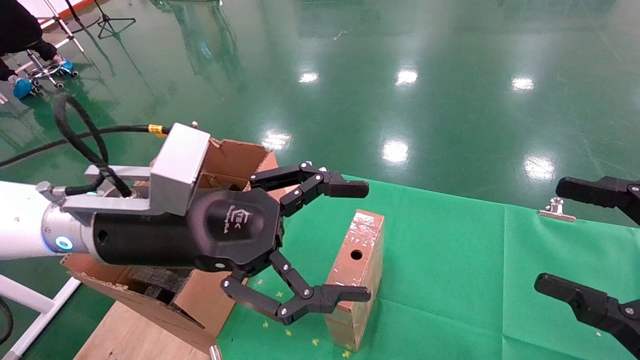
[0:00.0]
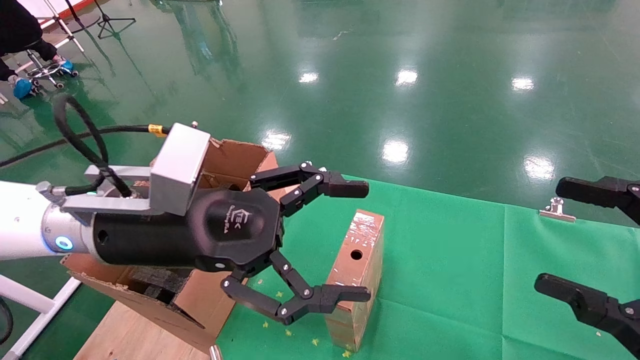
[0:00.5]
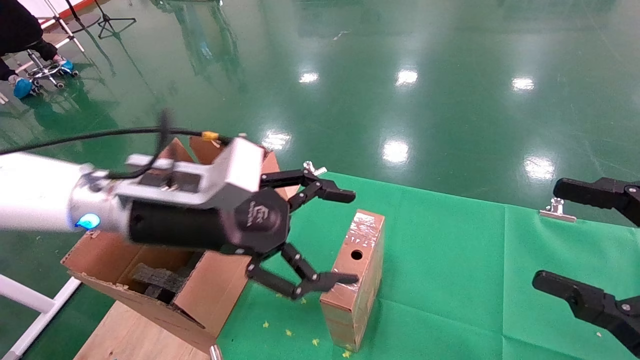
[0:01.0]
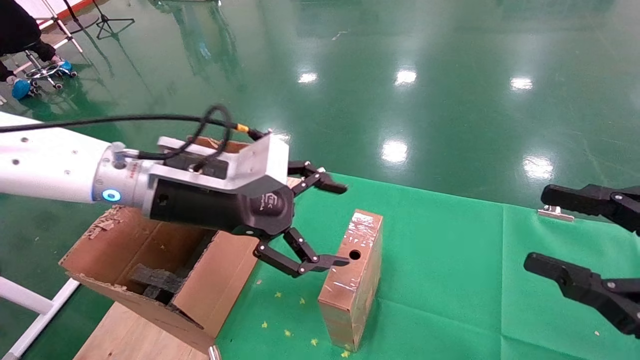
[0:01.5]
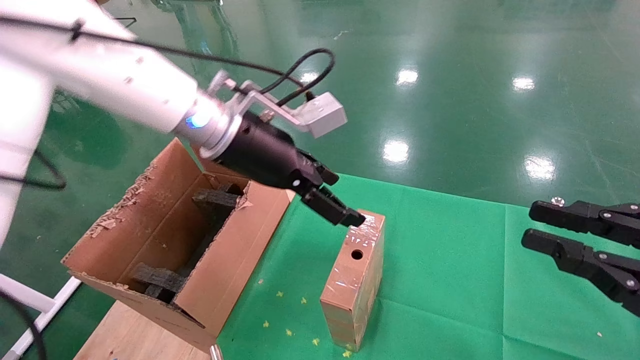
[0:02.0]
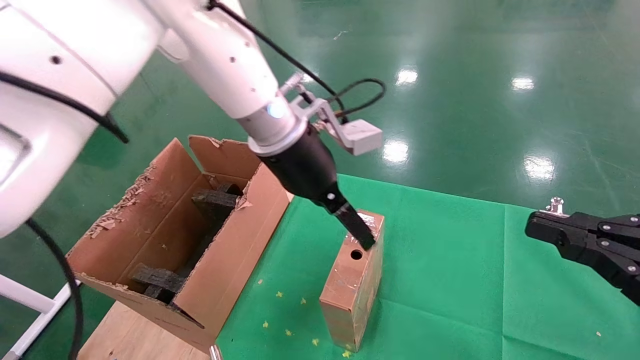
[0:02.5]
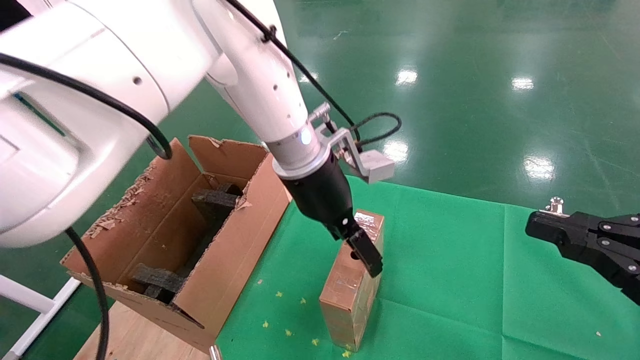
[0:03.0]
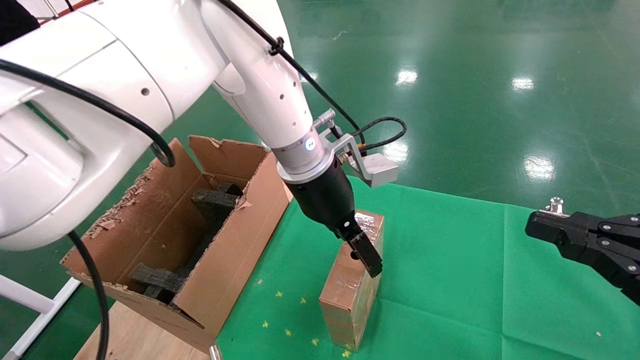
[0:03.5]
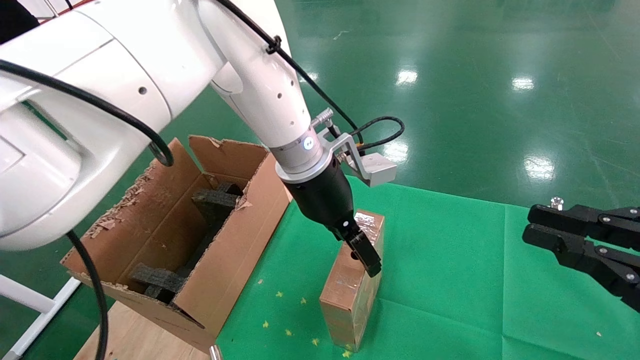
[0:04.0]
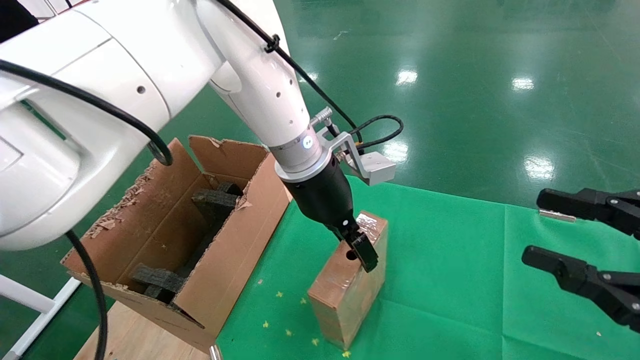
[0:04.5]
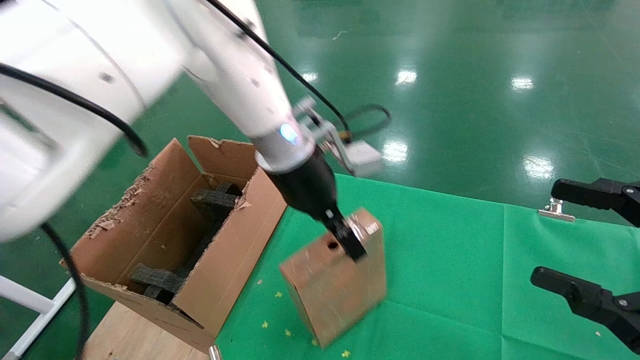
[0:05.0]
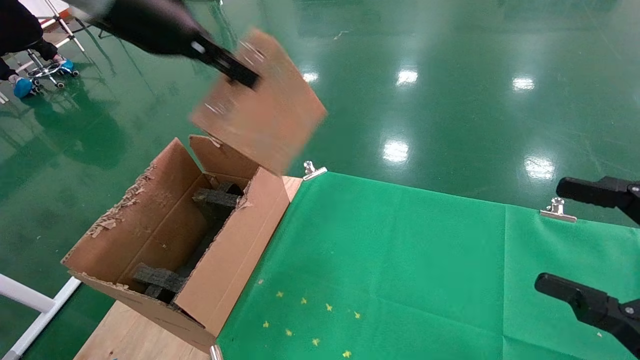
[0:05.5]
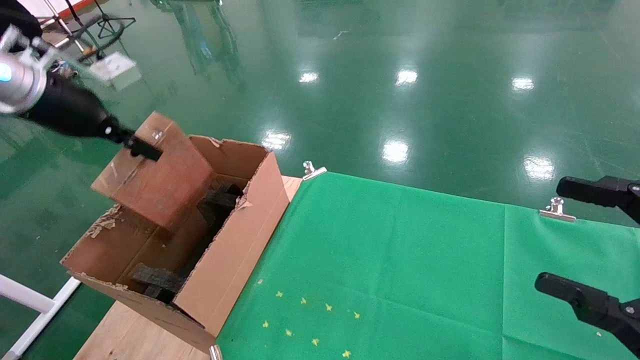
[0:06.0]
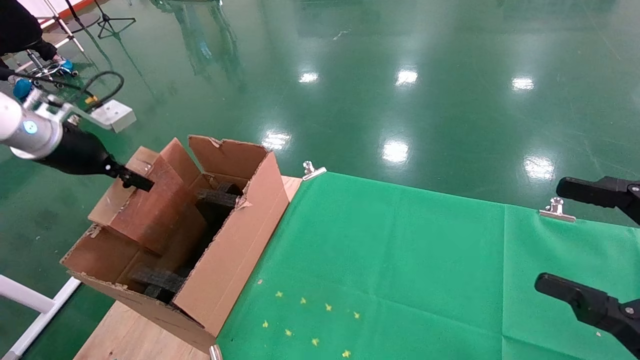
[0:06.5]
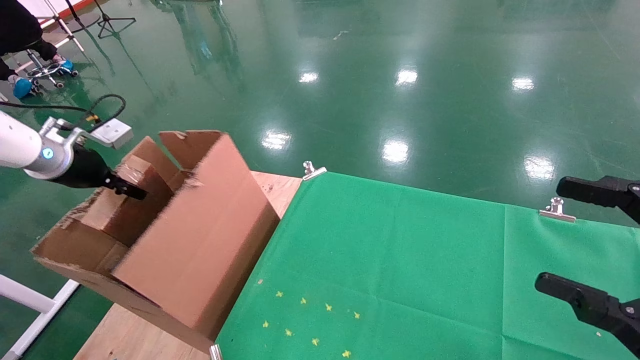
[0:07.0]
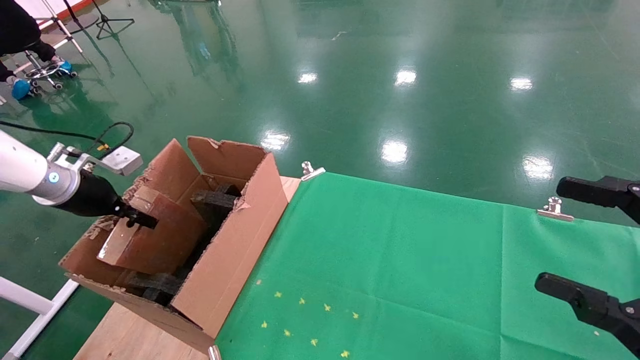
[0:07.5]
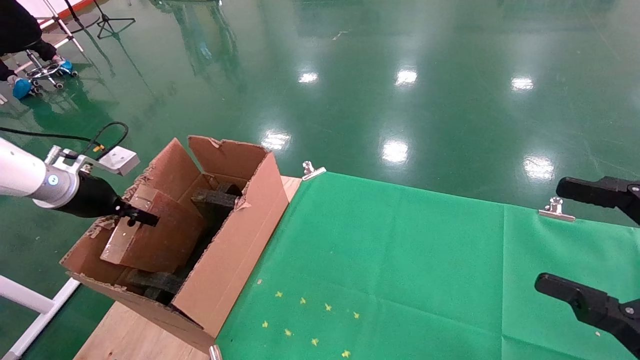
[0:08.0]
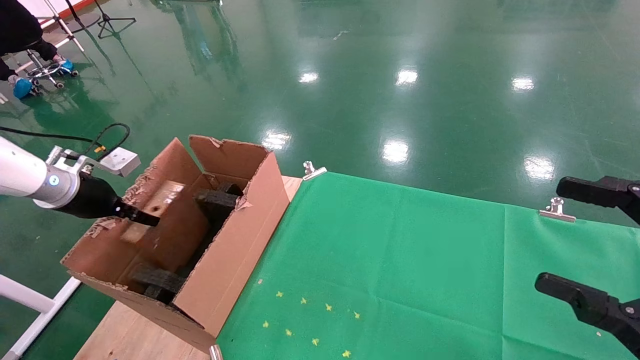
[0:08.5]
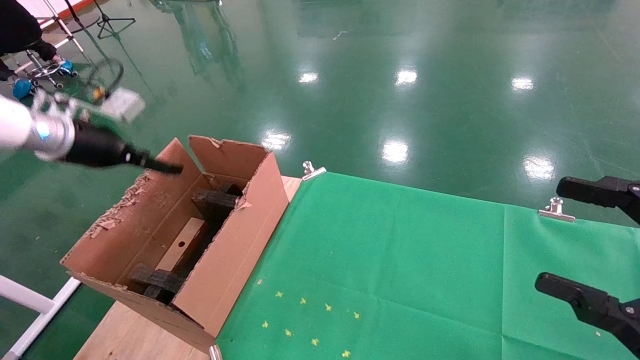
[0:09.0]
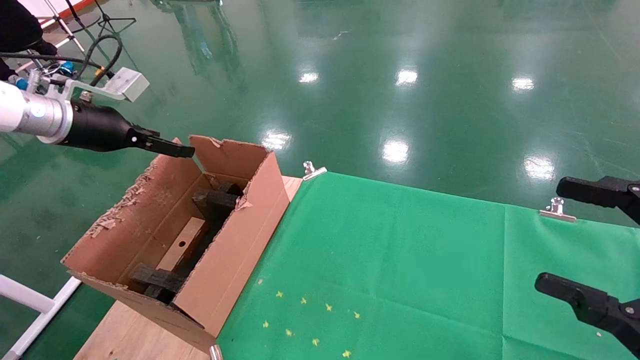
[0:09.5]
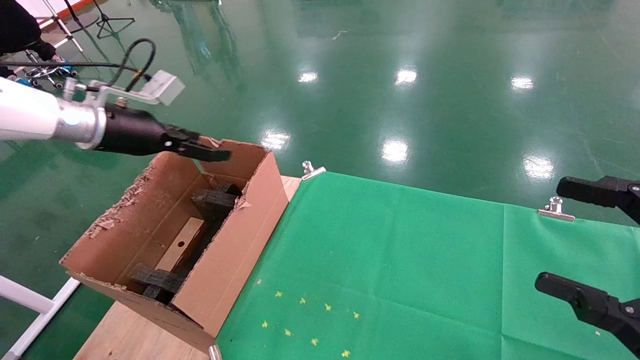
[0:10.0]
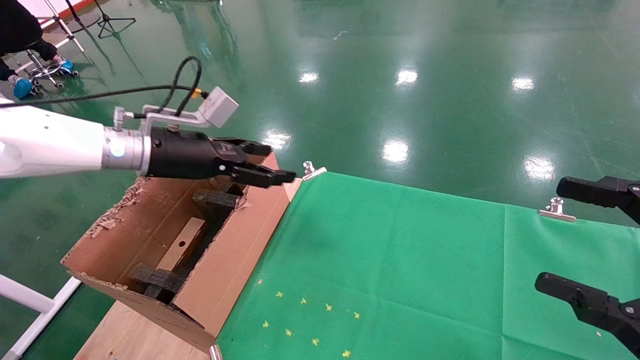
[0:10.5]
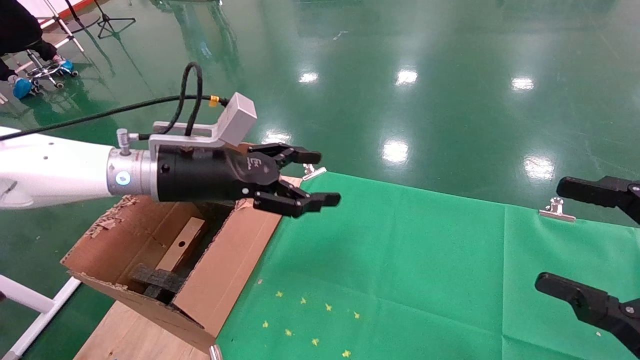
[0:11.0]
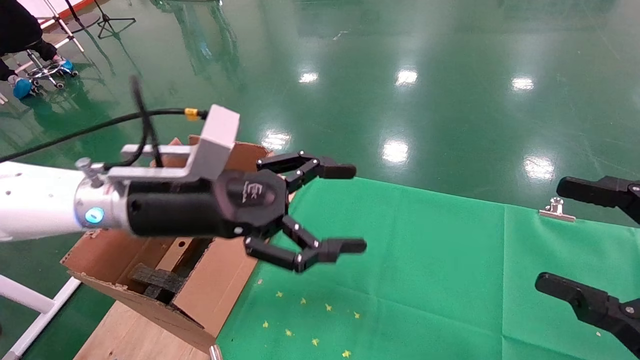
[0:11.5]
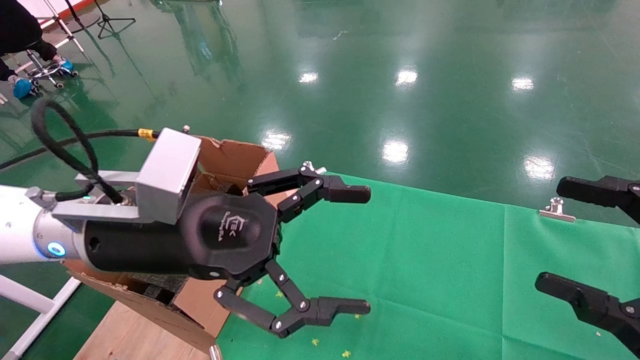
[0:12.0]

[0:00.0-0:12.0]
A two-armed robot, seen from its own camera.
Task of the whole recording: using a robotic arm to pick up a cardboard box and palace it the carton.
Step, 0:01.0 to 0:04.5: Pick up the mouse and the power cord paper box.
Step, 0:05.0 to 0:08.5: Place the mouse and the power cord paper box into the container.
0:00.0 to 0:02.0: The right gripper closes up; the left gripper goes approximately 15 cm forward, upward and to the right.
0:02.0 to 0:04.0: The left gripper is displaced to the right by approximately 10 cm.
0:04.0 to 0:06.0: The right gripper opens up. Meanwhile the left gripper goes some 35 cm to the left, and closes its fingers.
0:06.0 to 0:08.0: The left gripper shifts about 20 cm downward and to the left.
0:08.0 to 0:10.0: The left gripper is displaced to the right and upward by about 15 cm, and opens.
0:10.0 to 0:12.0: The left gripper shifts approximately 25 cm to the right and backward.

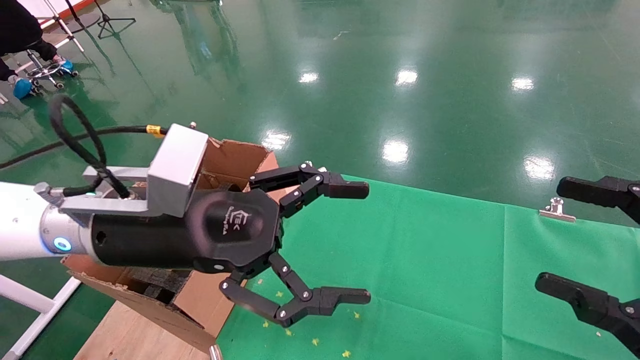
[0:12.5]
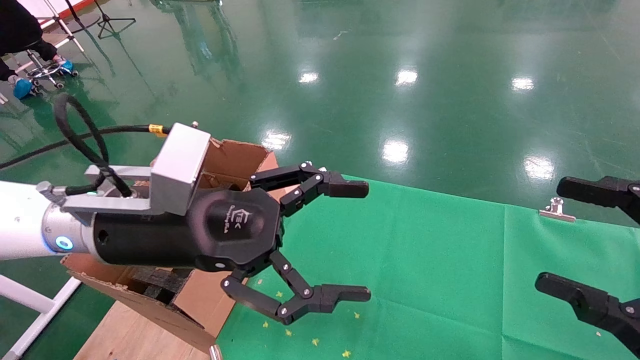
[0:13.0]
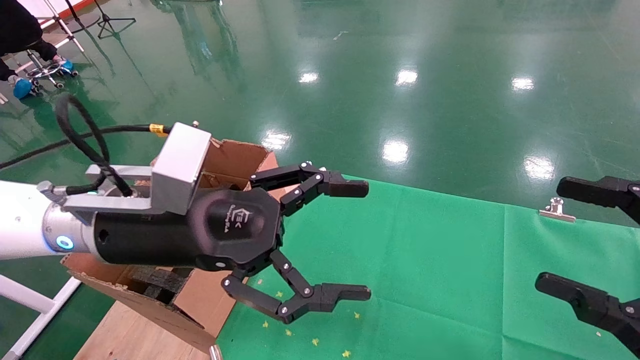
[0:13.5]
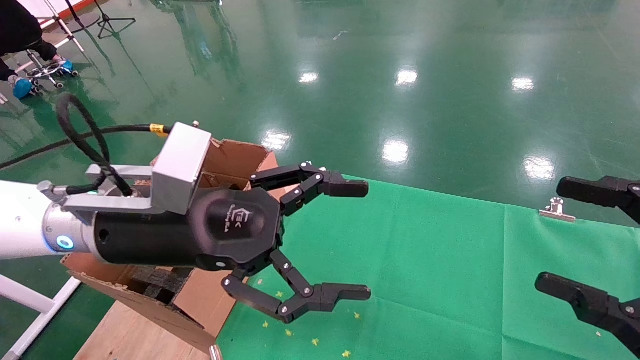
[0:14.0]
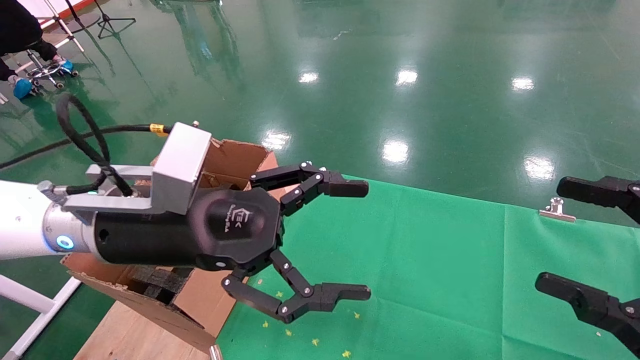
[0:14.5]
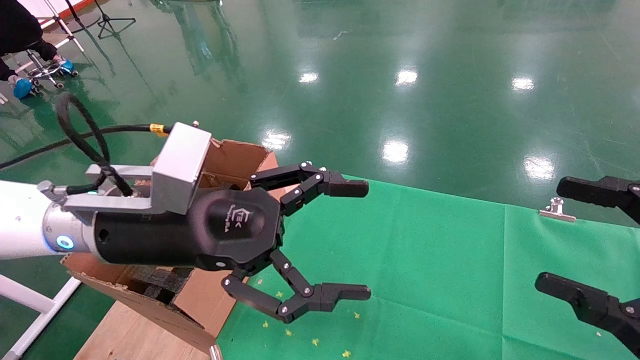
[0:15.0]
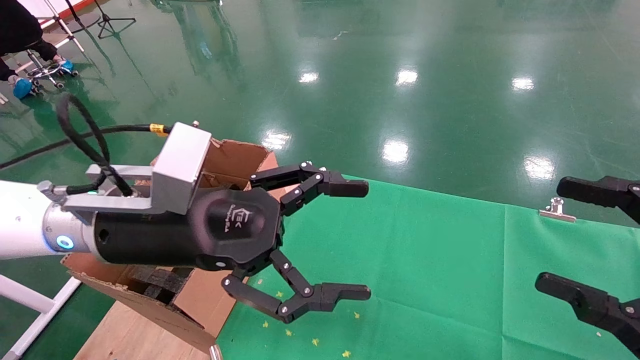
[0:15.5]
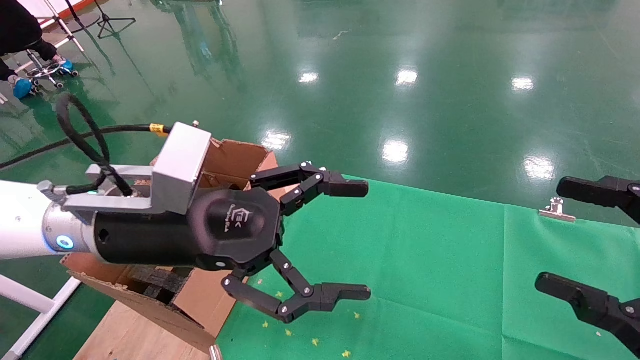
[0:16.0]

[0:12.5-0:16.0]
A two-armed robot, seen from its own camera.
Task of the whole recording: using a robotic arm to pick up a cardboard box and palace it the carton.
0:12.5 to 0:16.0: The two grippers keep their place.

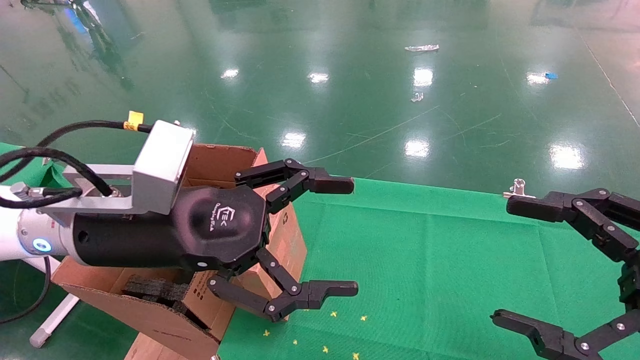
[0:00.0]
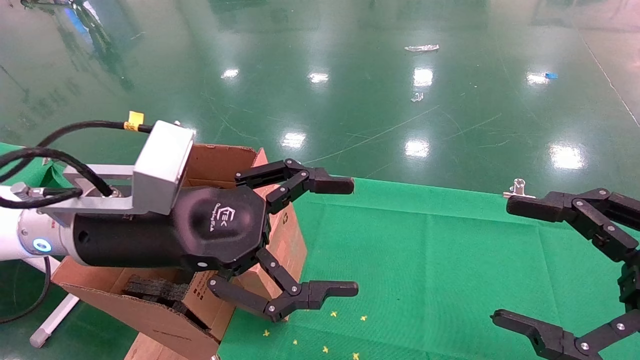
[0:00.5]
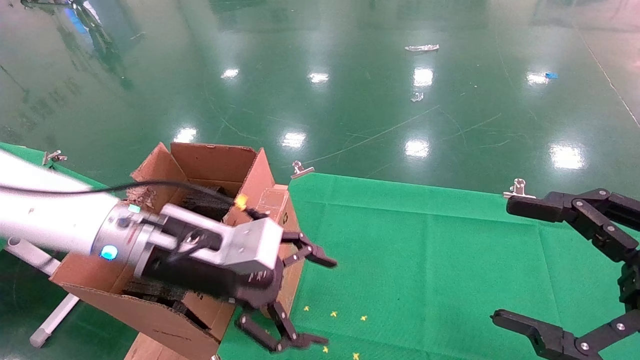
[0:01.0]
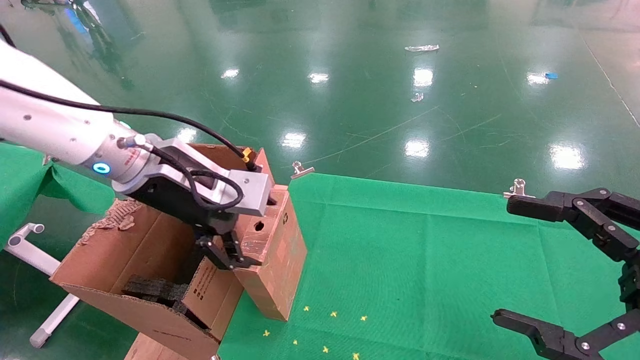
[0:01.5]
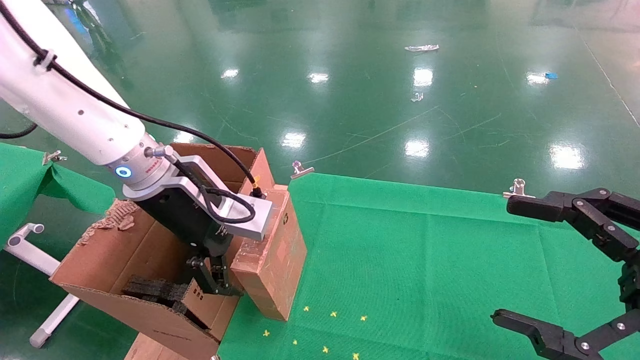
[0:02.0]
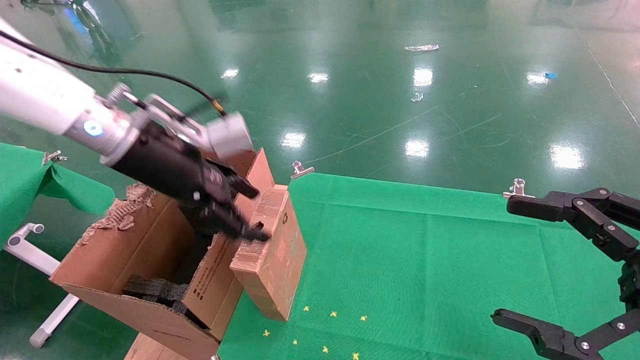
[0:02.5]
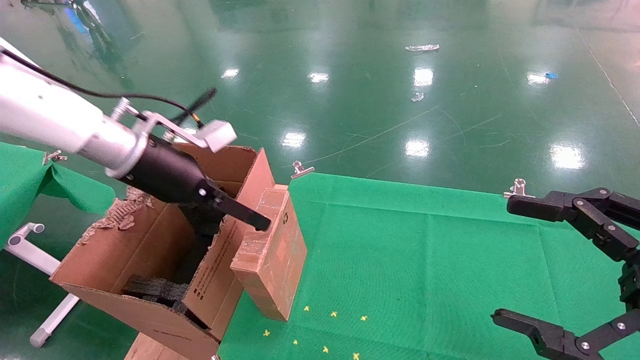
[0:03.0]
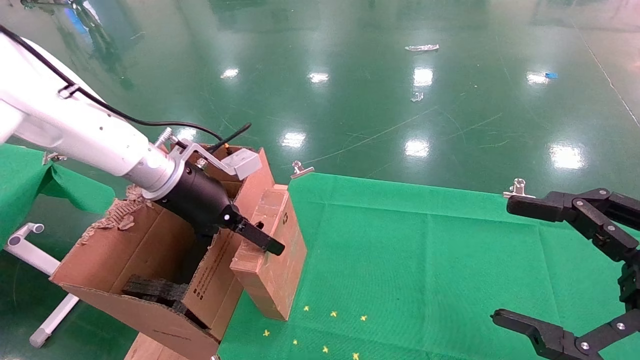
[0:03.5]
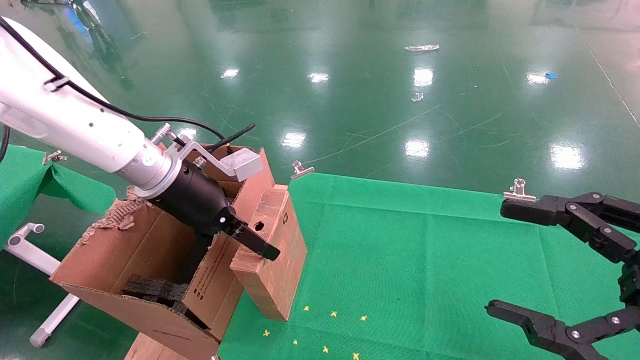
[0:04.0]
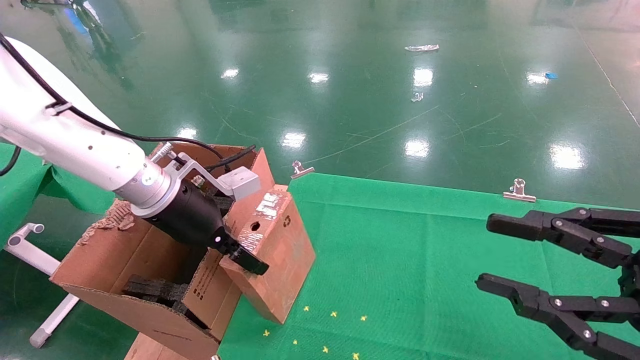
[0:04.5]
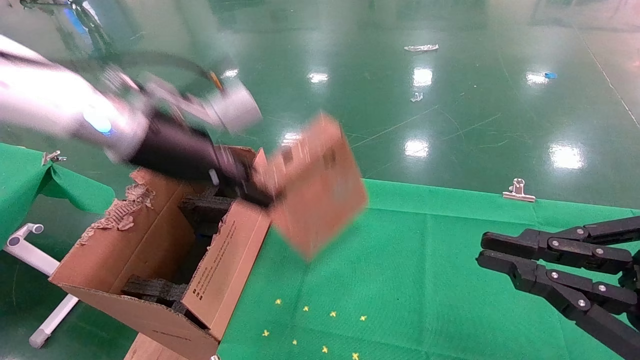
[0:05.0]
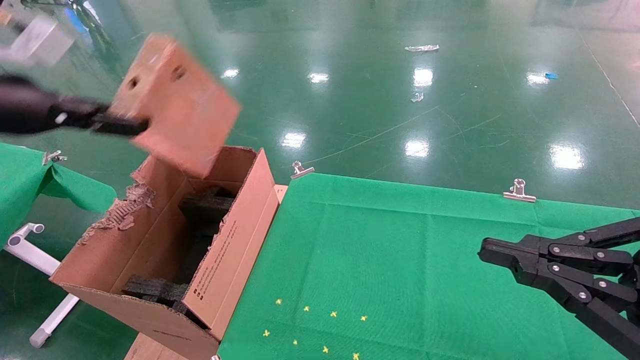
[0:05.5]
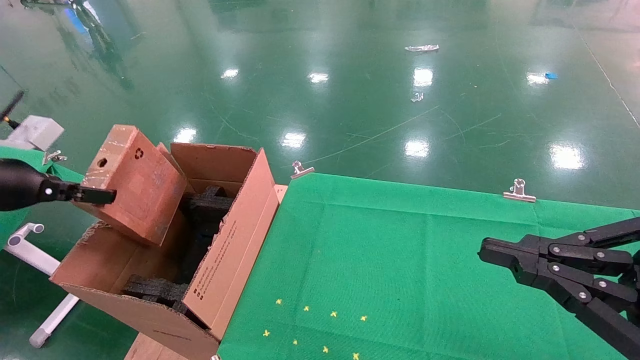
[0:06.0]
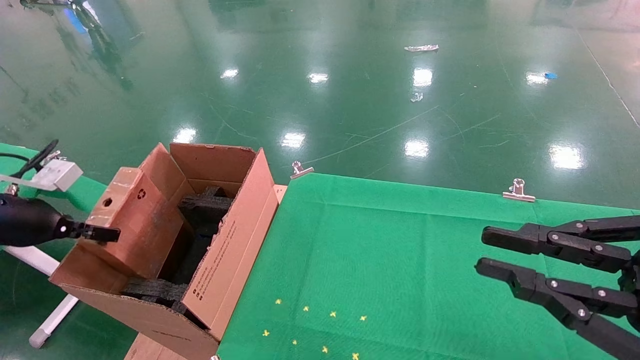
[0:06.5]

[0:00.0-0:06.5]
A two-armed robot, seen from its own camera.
Task of the whole recording: using a robotic arm to pick up a cardboard box and palace it the carton.
Step, 0:01.0 to 0:05.0: Pick up the mouse and the power cord paper box.
0:00.0 to 0:02.0: The left gripper moves forward, some 10 cm.
0:02.0 to 0:04.5: The right gripper closes its fingers. The left gripper closes up.
0:04.5 to 0:06.5: The right gripper closes up, while the left gripper is displaced to the left by some 25 cm, and closes up.
